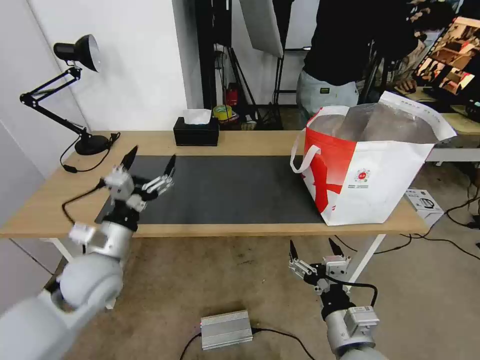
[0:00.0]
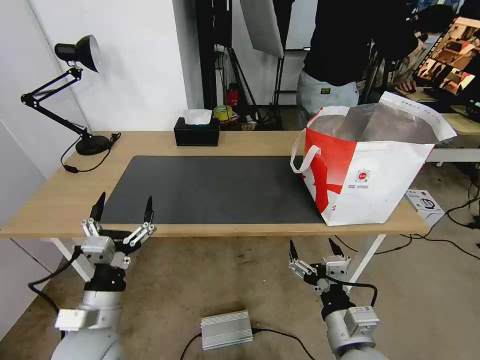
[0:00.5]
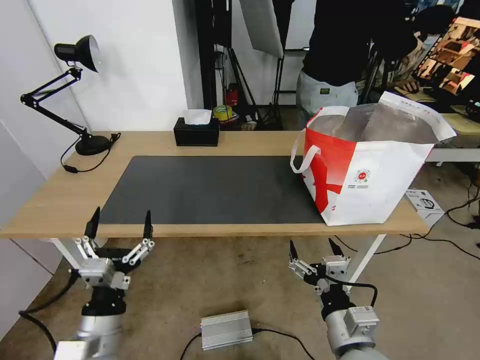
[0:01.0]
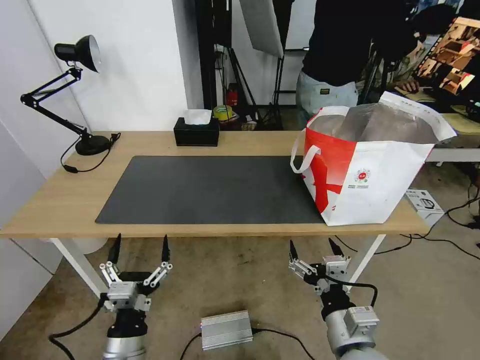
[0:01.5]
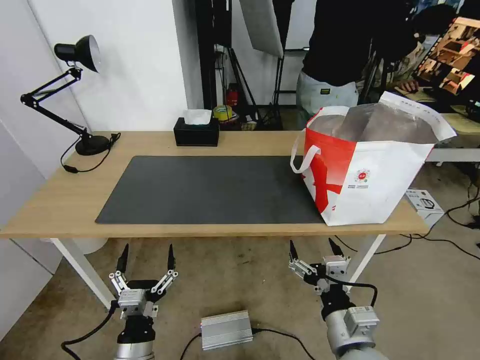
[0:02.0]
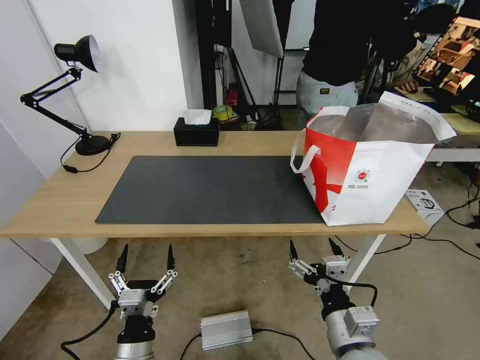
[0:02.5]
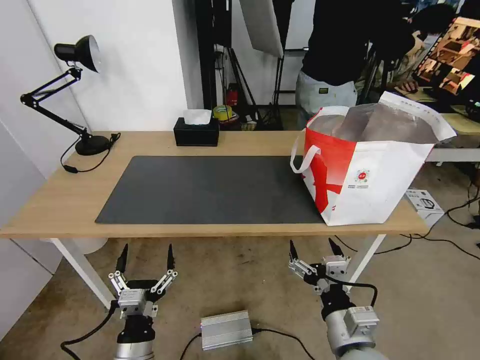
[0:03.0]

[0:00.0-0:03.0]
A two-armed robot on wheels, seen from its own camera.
Task of the whole recording: Pick up the trash from the table and place it into the takeout bag.
0:00.0 to 0:01.5: The left gripper is displaced backward and downward by roughly 20 cm.
0:01.5 to 0:03.0: The grippers make only small movements.

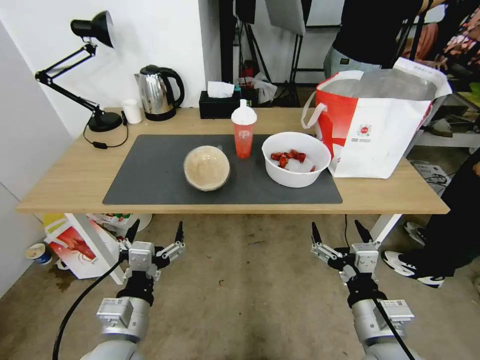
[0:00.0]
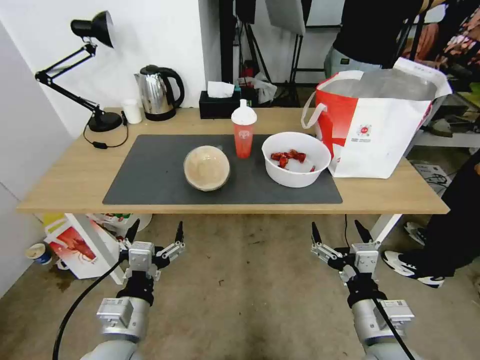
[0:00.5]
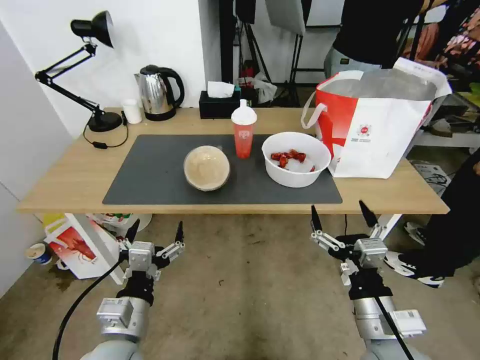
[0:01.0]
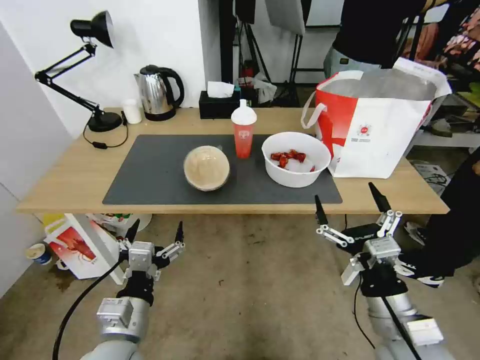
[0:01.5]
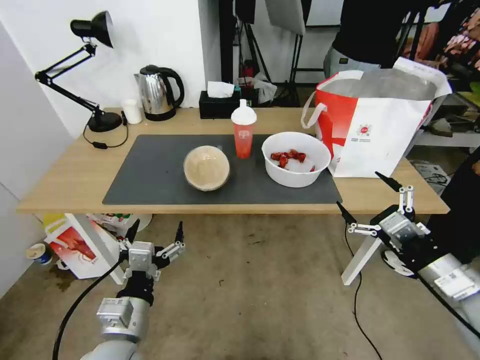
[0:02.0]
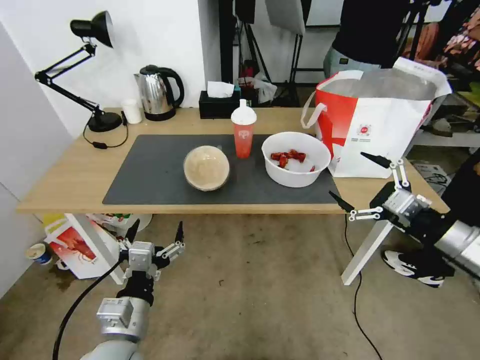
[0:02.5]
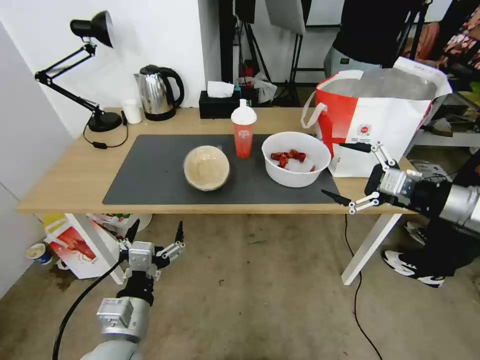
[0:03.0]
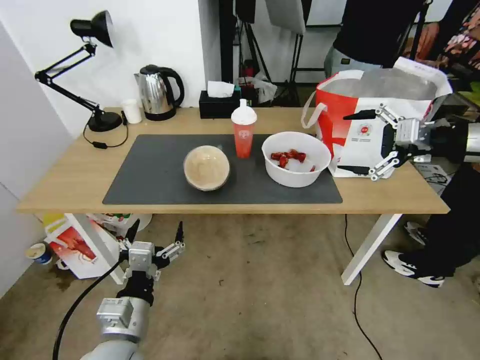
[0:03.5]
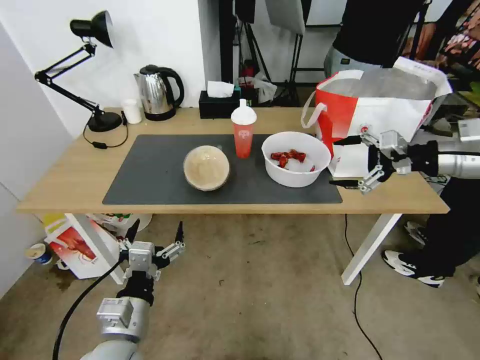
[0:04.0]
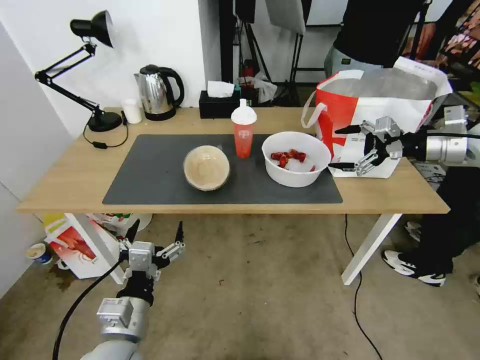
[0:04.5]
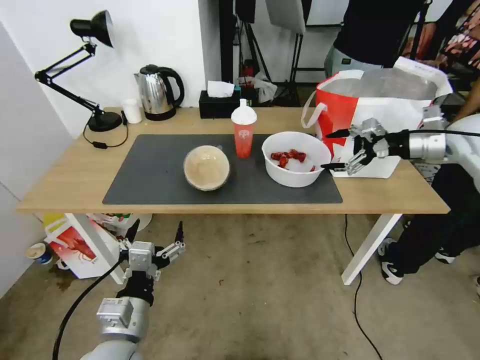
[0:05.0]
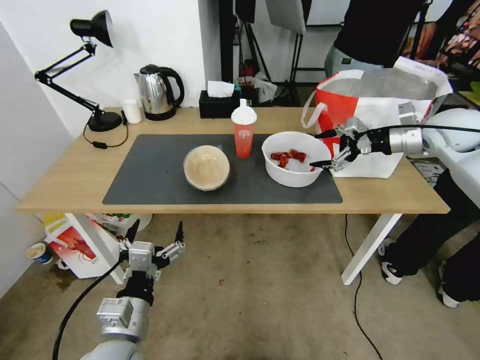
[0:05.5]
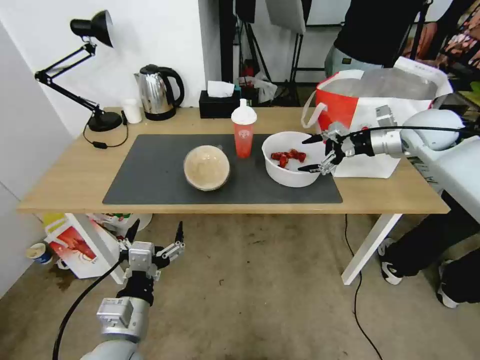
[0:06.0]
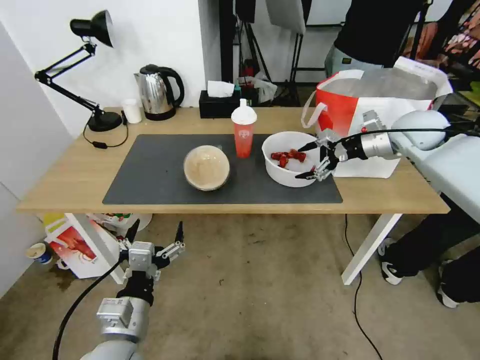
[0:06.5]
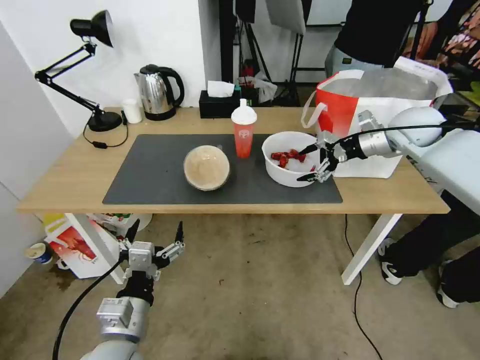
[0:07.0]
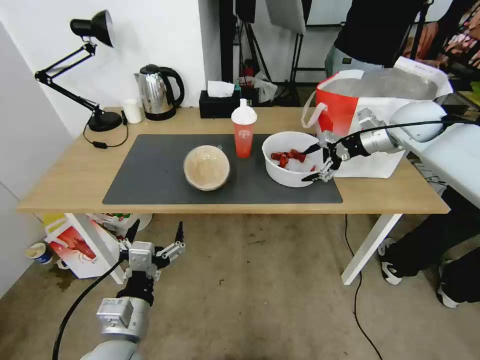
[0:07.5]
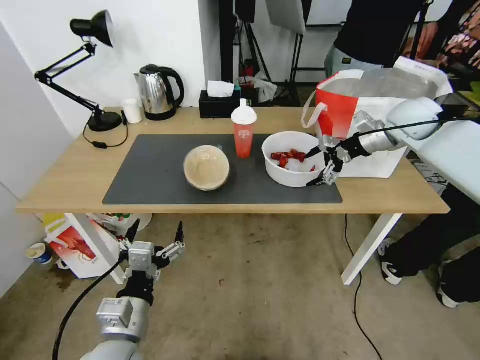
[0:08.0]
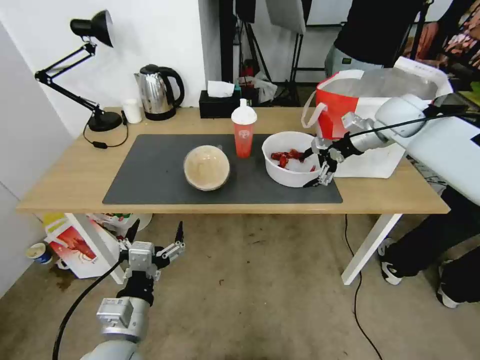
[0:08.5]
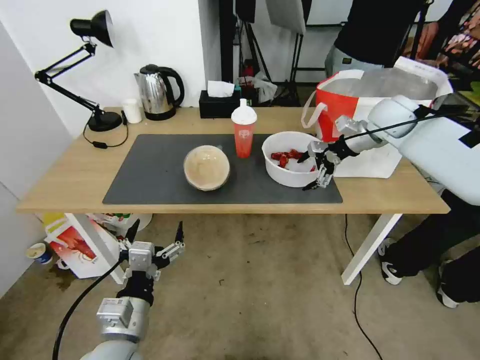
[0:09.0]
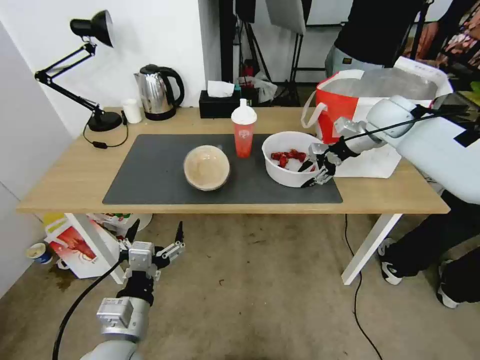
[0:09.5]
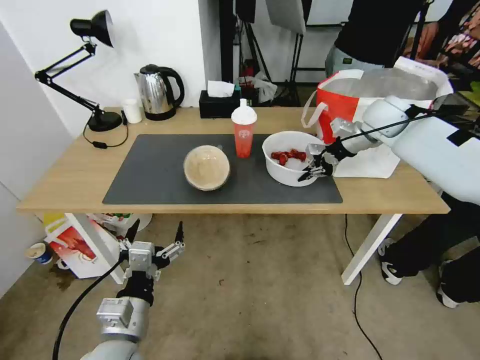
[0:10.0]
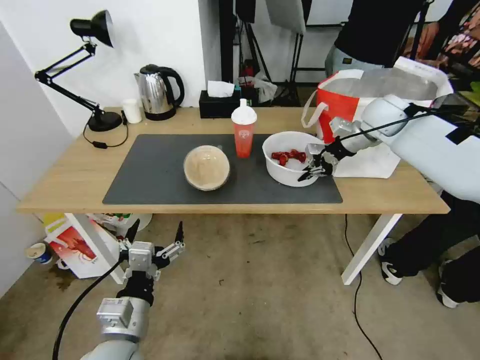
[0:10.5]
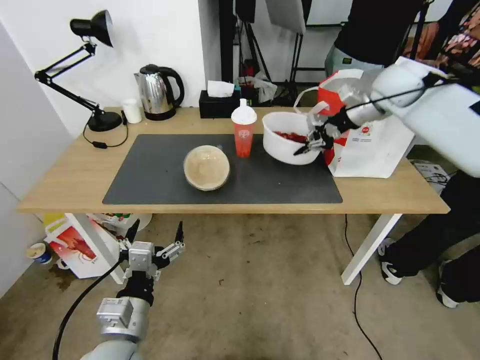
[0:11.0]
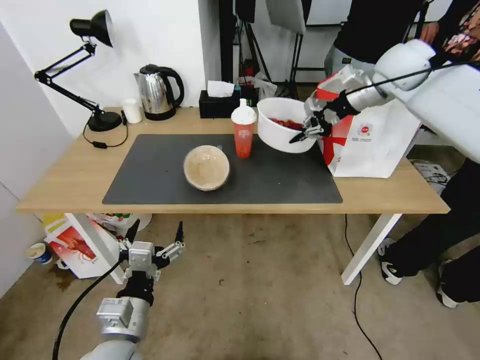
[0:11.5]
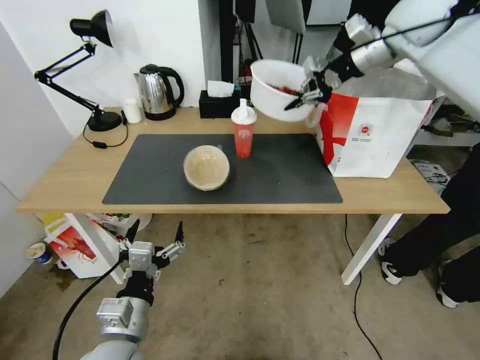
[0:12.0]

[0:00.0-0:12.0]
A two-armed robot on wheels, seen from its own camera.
Task of the whole recording: Pick up the trash from the table and place it into the takeout bag.
0:02.0 to 0:04.0: The right gripper goes some 25 cm forward and upward.
0:04.0 to 0:06.0: The right gripper travels forward by approximately 15 cm.
0:06.0 to 0:08.0: There are only small adjustments of the grippers.
0:08.0 to 0:10.0: The right gripper shifts by approximately 5 cm, and closes.
0:10.0 to 0:12.0: The right gripper heads upward, covering some 20 cm.

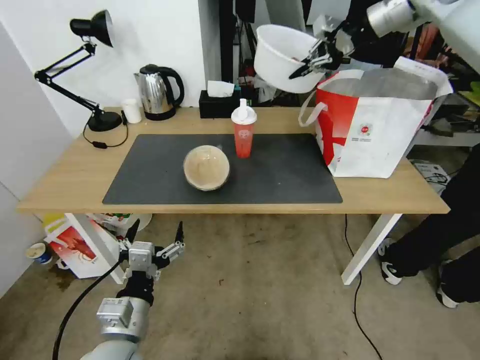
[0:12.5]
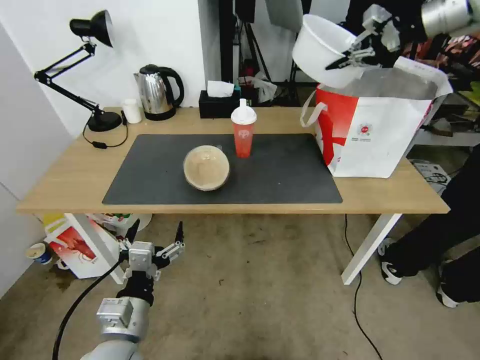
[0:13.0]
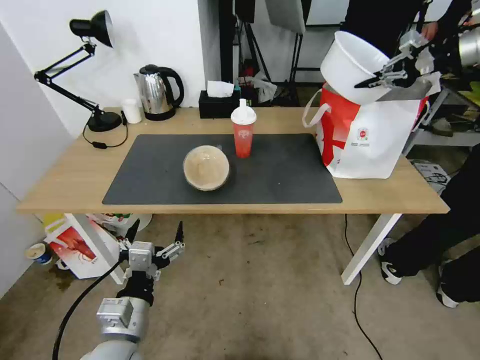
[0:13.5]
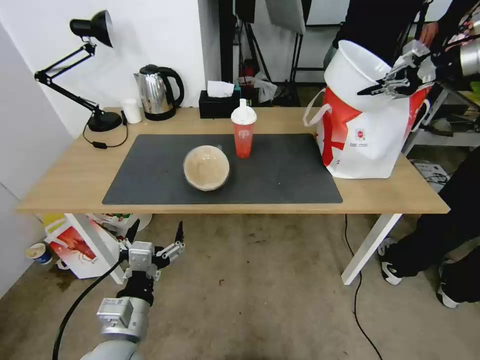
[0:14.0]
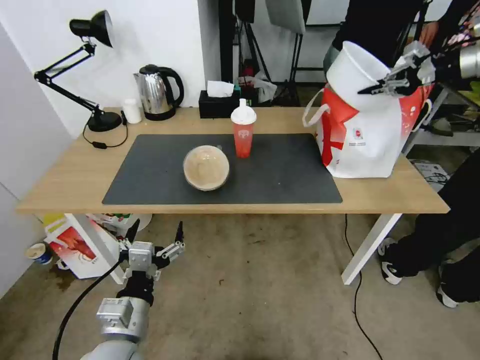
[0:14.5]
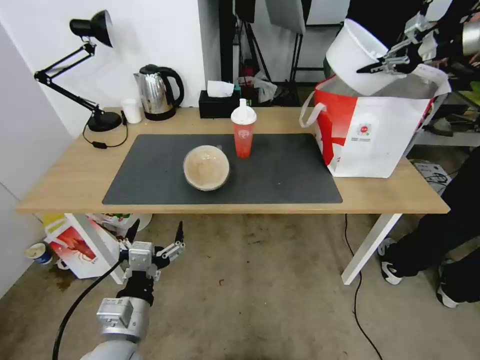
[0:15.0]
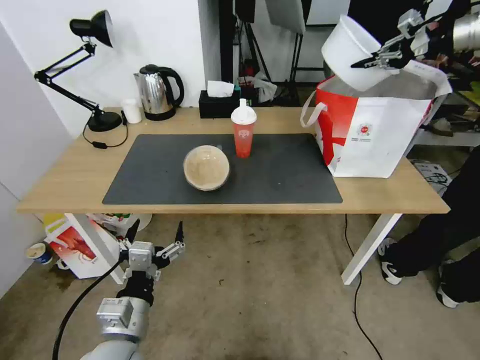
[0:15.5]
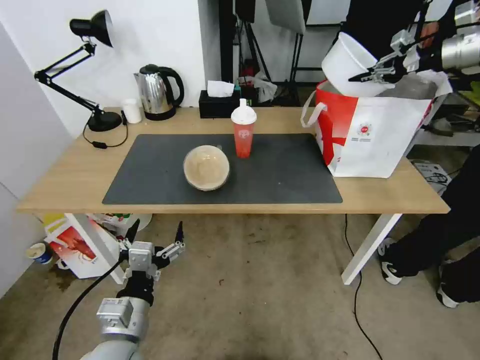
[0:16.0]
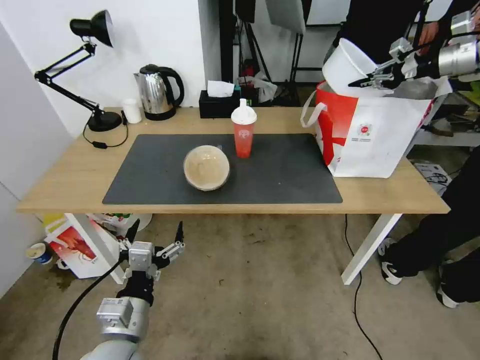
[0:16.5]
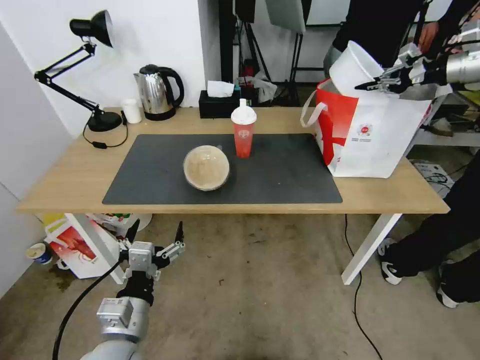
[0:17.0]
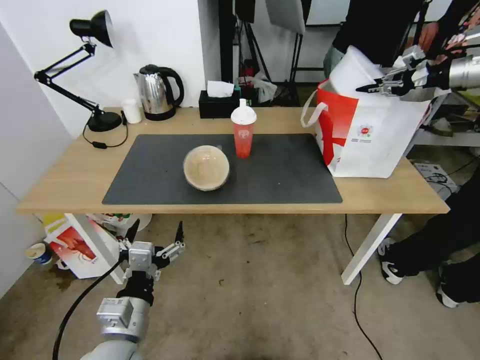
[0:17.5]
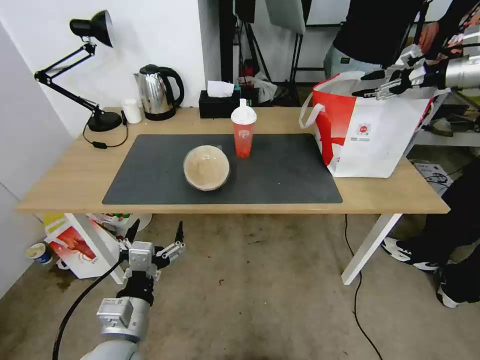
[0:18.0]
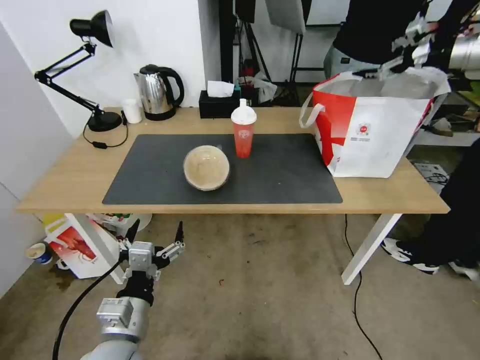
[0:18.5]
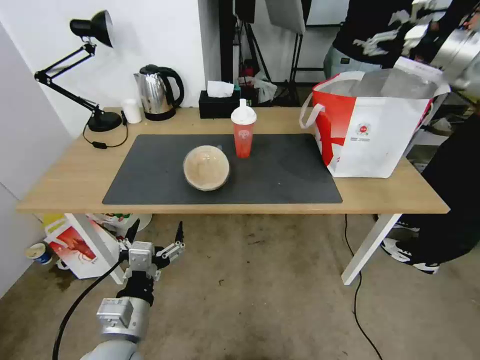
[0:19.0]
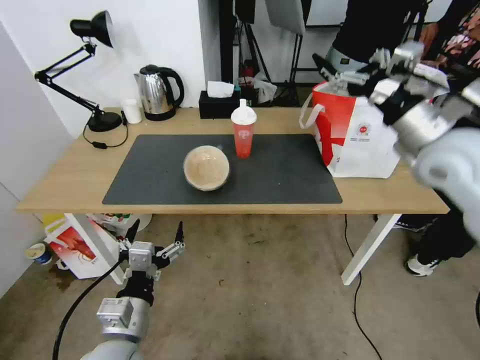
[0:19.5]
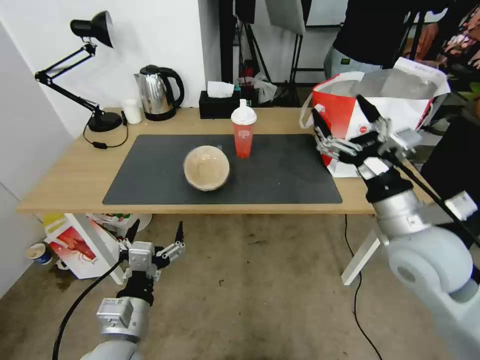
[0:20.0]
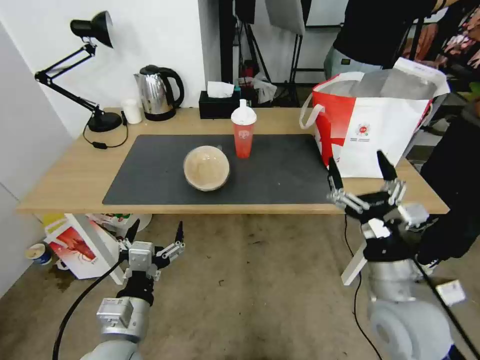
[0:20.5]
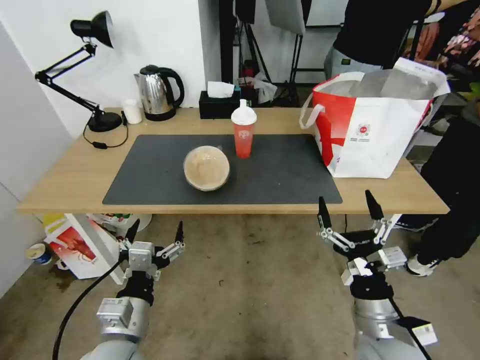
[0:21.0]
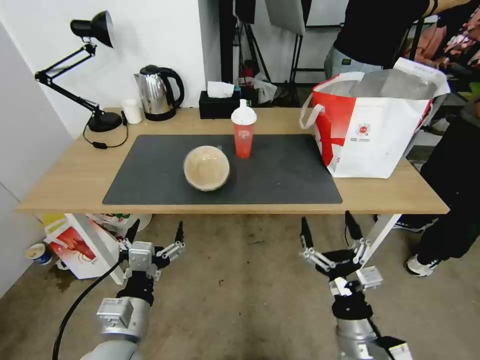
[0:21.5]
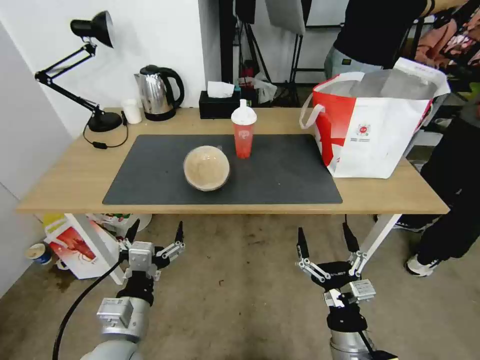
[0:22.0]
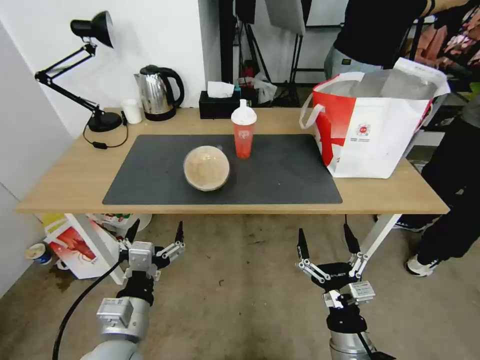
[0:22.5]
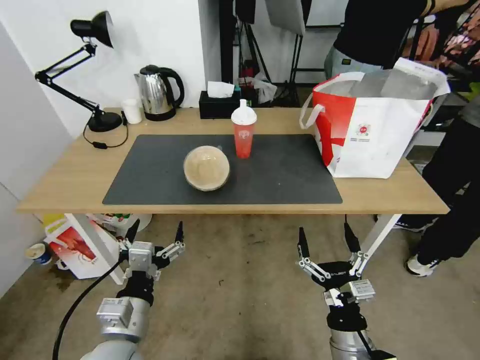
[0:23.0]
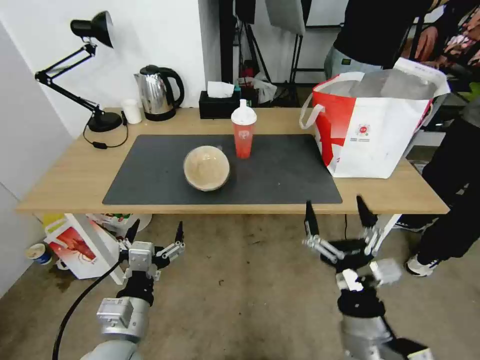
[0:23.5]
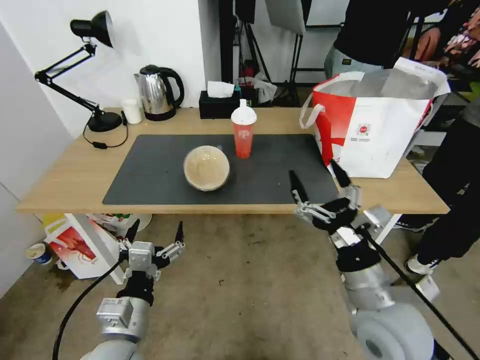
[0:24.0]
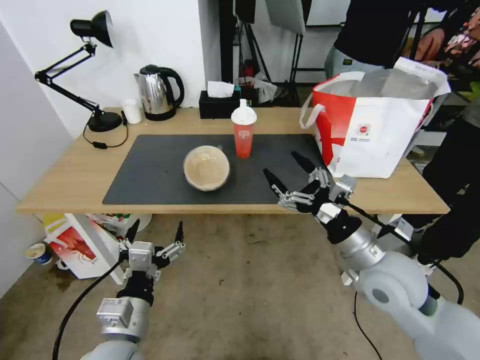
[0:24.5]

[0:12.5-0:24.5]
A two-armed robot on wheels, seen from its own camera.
Task of the whole recording: Pick up the trash from the table and place it into the takeout bag.
0:12.5 to 0:14.5: The right gripper is displaced to the right and downward by some 20 cm.
0:14.5 to 0:16.5: The right gripper shifts by about 5 cm.
0:16.5 to 0:18.5: The right gripper opens.
0:18.5 to 0:20.5: The right gripper travels backward, downward and to the left by about 50 cm.
0:20.5 to 0:22.5: The right gripper goes some 15 cm downward, backward and to the left.
0:22.5 to 0:24.5: The right gripper is displaced upward and forward by about 20 cm.
